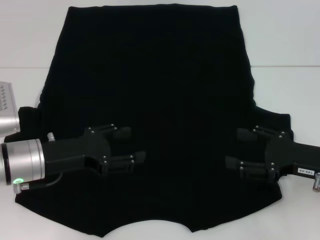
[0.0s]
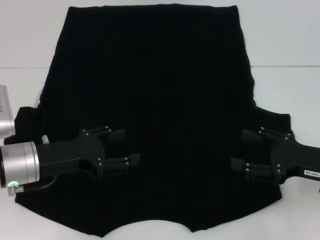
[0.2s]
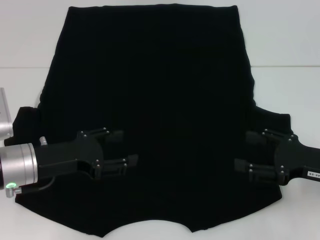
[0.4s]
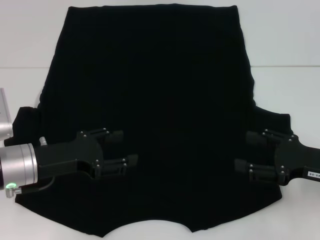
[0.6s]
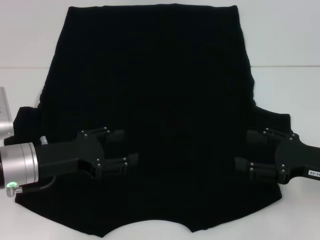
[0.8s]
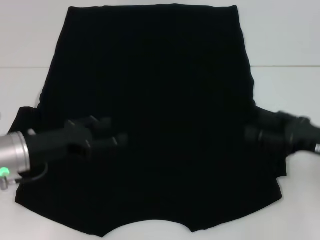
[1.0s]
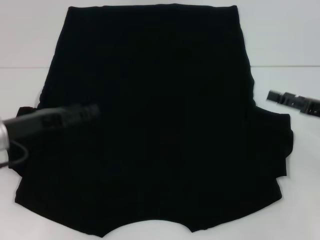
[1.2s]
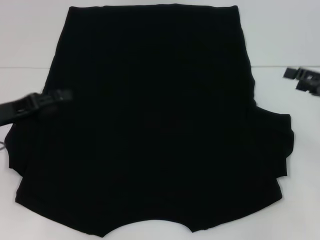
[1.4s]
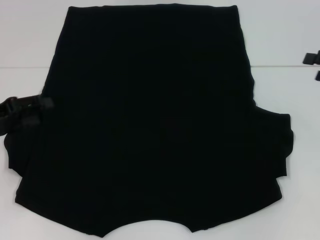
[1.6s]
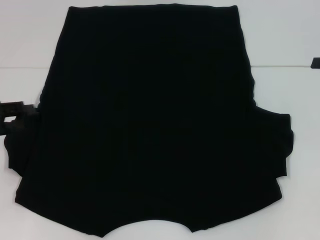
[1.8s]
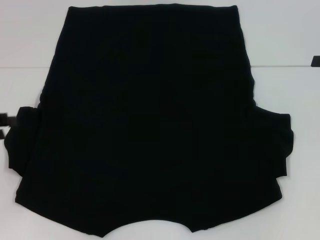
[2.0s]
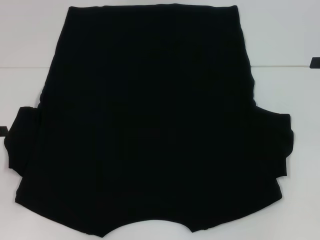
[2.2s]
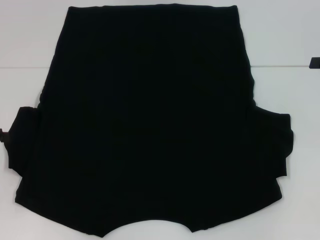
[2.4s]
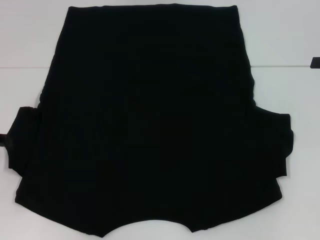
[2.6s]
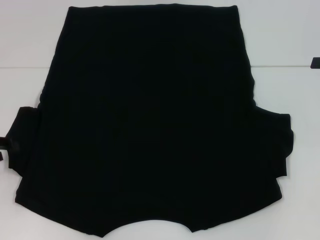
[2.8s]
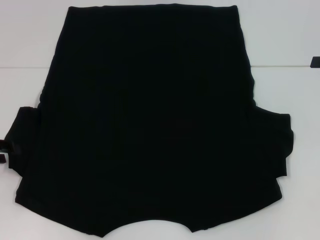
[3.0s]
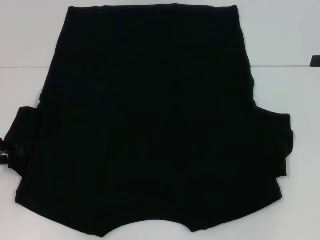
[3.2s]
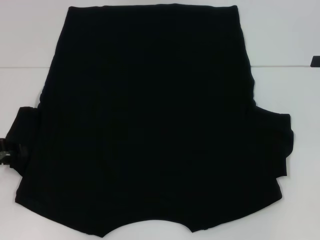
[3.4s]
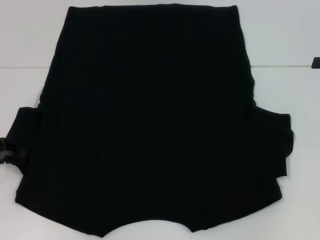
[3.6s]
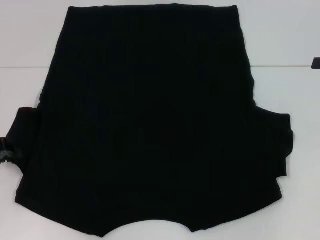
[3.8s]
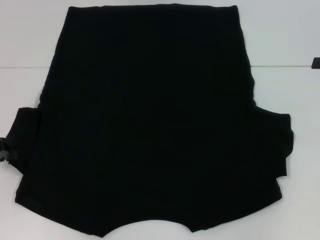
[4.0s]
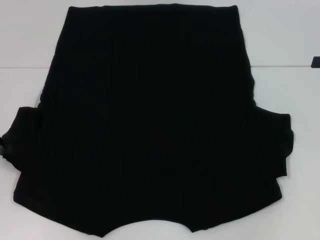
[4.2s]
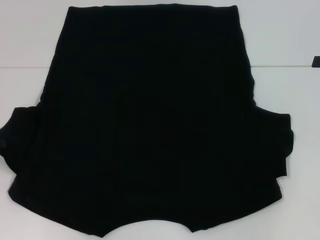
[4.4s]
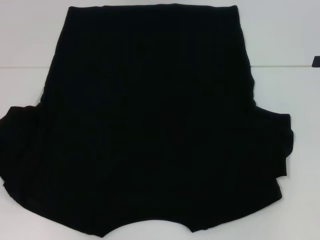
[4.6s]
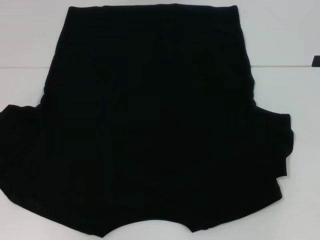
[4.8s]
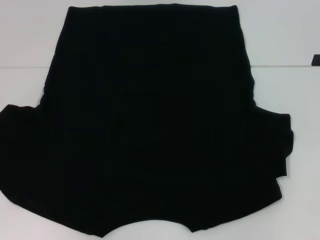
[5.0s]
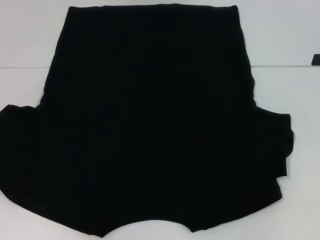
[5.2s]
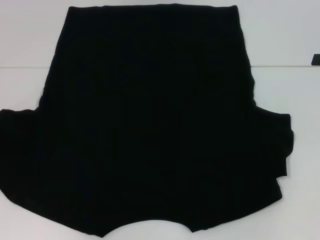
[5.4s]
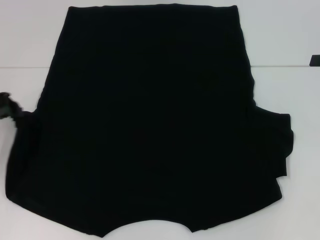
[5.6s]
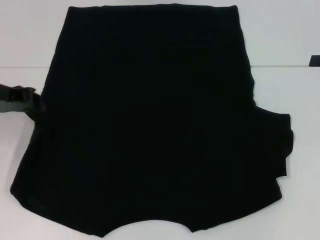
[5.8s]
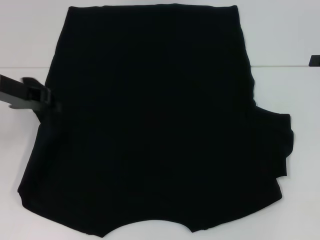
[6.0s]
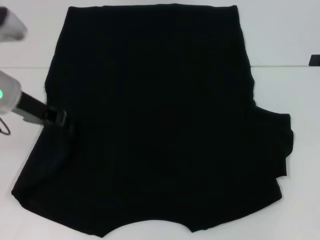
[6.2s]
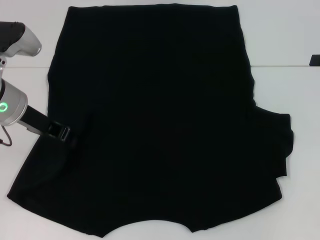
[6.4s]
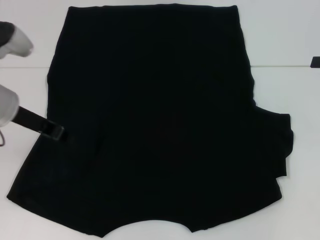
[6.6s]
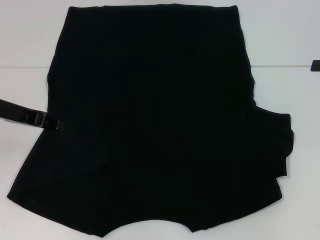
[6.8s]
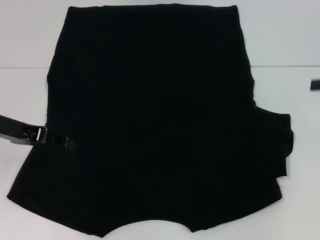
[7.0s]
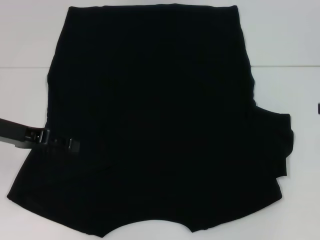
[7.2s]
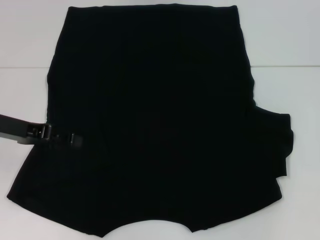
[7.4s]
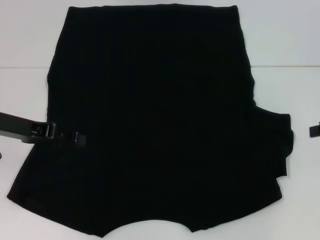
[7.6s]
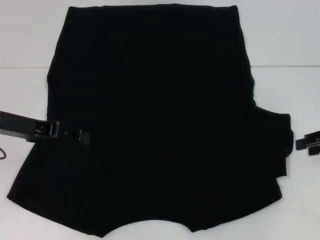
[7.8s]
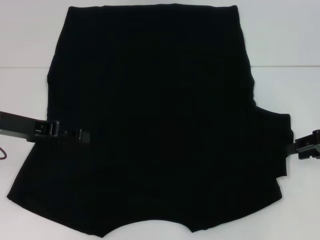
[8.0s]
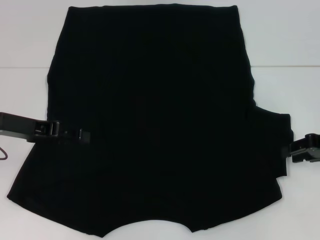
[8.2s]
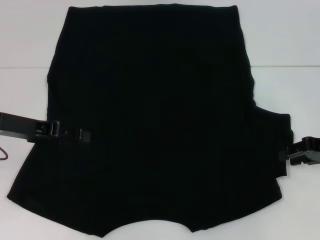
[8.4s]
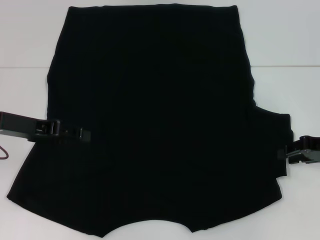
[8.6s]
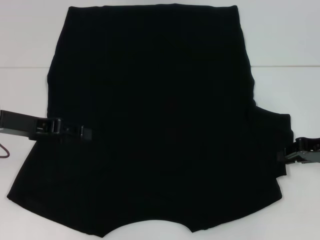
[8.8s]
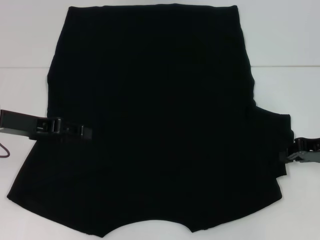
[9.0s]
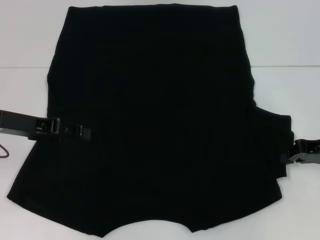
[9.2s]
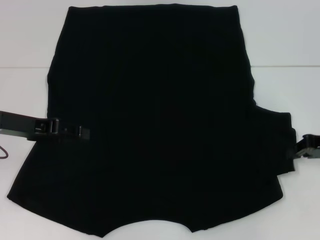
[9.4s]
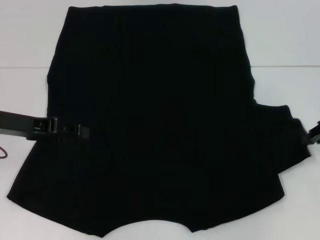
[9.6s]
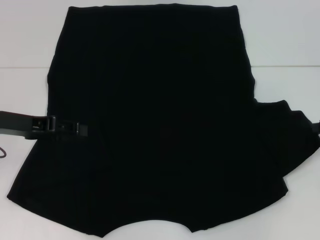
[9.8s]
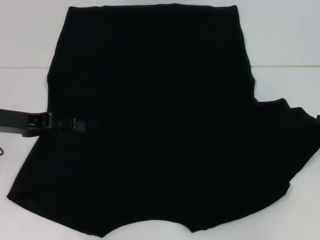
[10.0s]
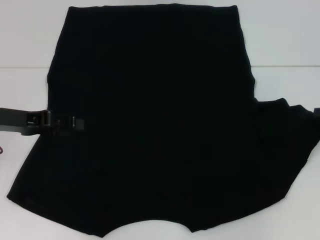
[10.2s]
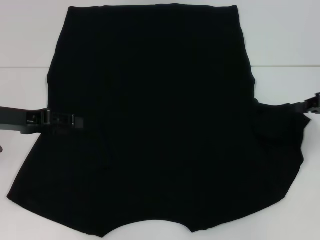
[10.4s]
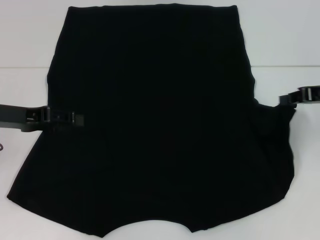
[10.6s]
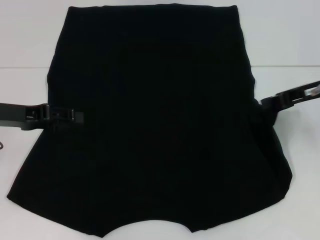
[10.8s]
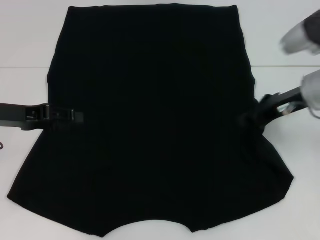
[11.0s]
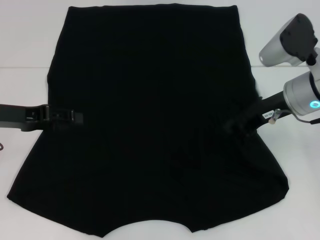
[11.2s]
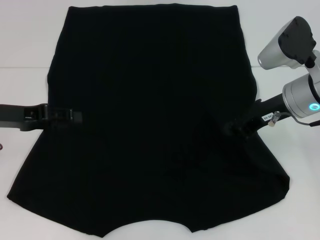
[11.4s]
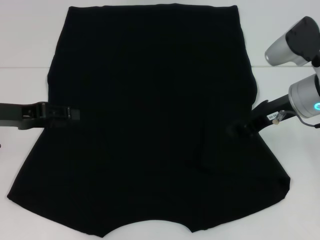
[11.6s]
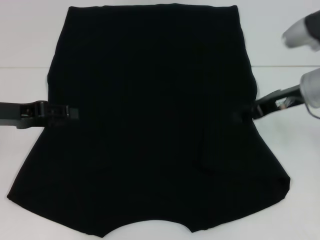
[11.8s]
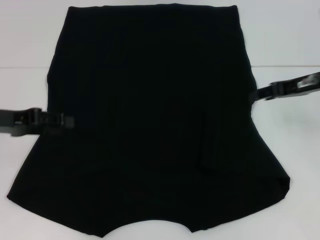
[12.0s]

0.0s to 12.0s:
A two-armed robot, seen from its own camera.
Step, 0.0s to 7.8s: Fold the bottom left sleeve with your left hand.
Step, 8.0s to 11.4s: Fold the bottom right sleeve with your right hand.
0.0s to 1.6s: The right gripper heads to the right, forward and upward, covering approximately 15 cm. The left gripper moves to the left, about 10 cm.
3.0s to 4.4s: The left gripper closes its fingers.
4.4s to 6.0s: The left gripper travels to the right, forward and upward by approximately 15 cm.
6.0s to 7.6s: The left gripper ends up approximately 5 cm from where it was, and opens its fingers.
7.6s to 9.0s: The right gripper heads downward and to the left, covering about 10 cm, and closes up.
9.0s to 10.4s: The right gripper changes place by some 5 cm.
10.4s to 12.0s: The right gripper moves to the left, roughly 5 cm.

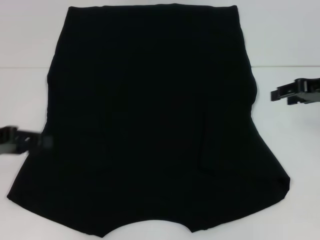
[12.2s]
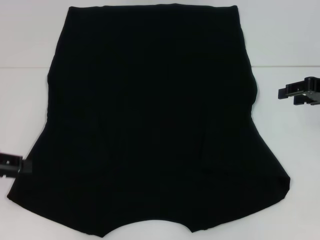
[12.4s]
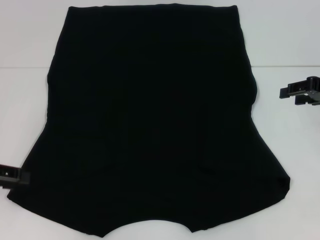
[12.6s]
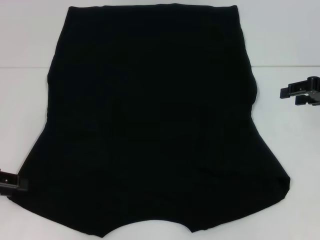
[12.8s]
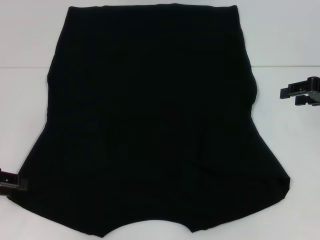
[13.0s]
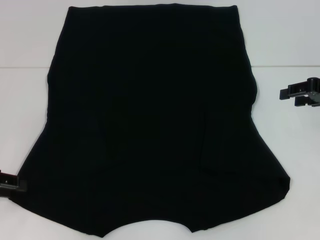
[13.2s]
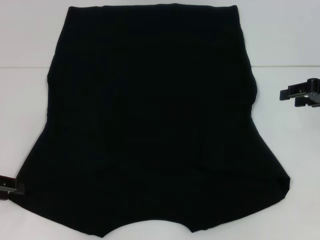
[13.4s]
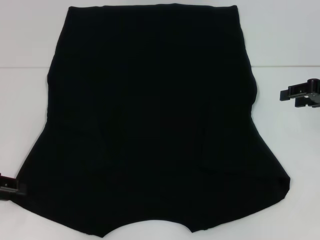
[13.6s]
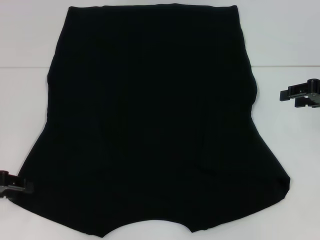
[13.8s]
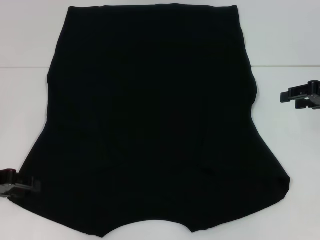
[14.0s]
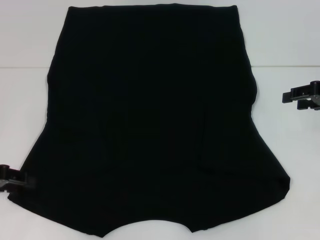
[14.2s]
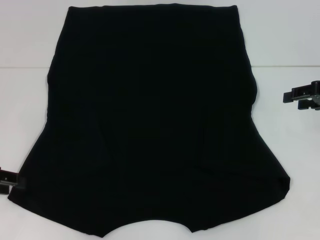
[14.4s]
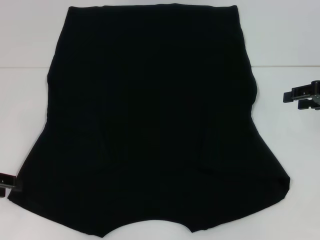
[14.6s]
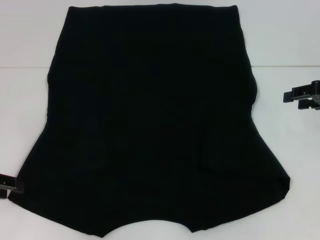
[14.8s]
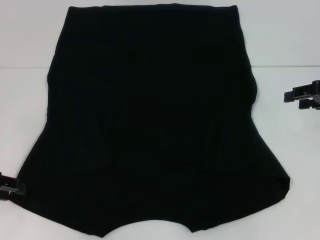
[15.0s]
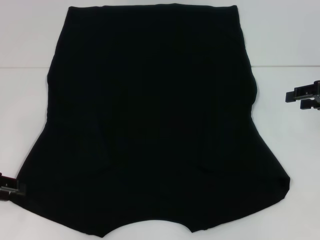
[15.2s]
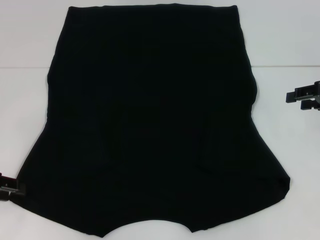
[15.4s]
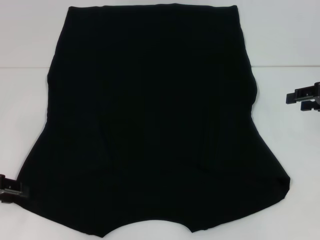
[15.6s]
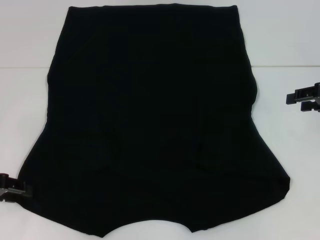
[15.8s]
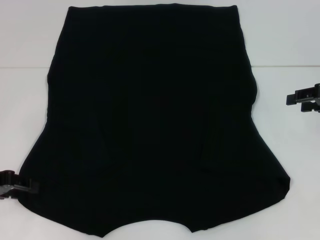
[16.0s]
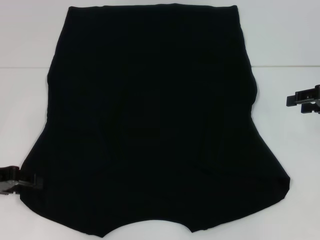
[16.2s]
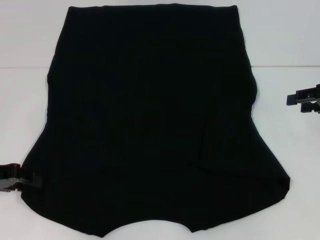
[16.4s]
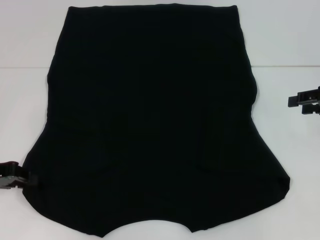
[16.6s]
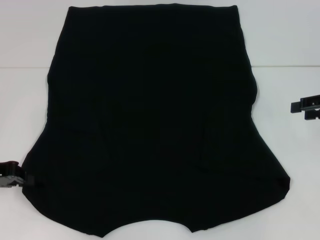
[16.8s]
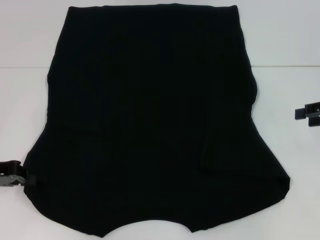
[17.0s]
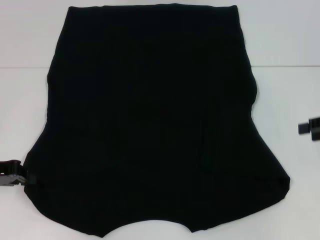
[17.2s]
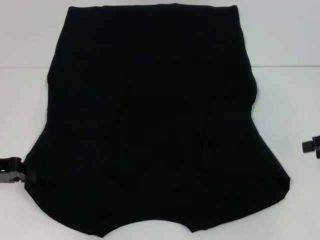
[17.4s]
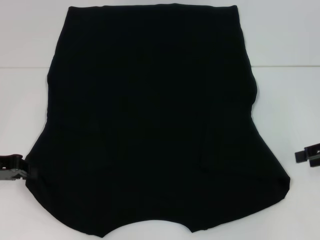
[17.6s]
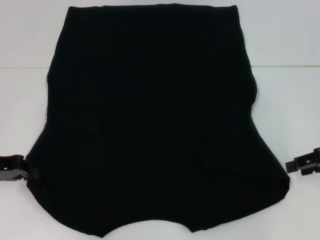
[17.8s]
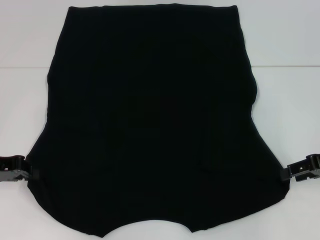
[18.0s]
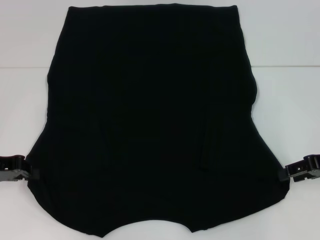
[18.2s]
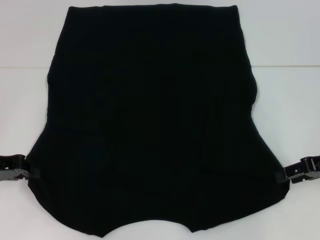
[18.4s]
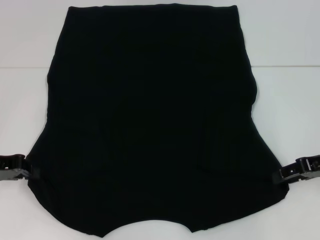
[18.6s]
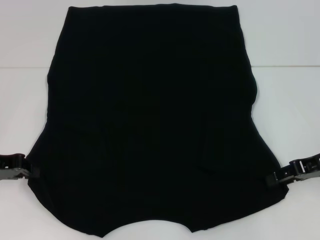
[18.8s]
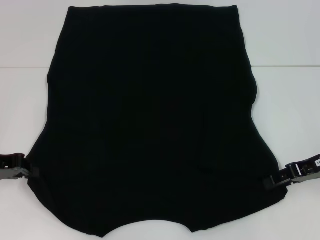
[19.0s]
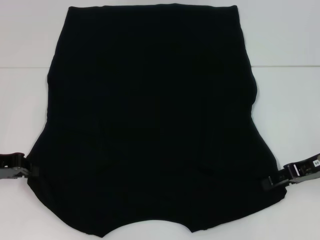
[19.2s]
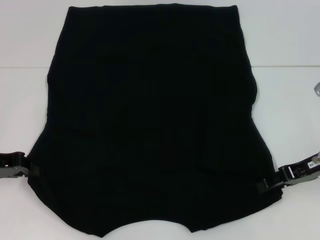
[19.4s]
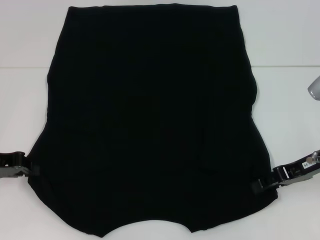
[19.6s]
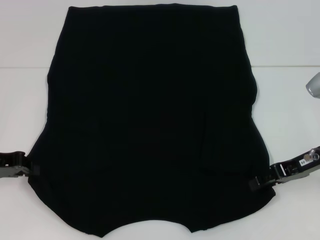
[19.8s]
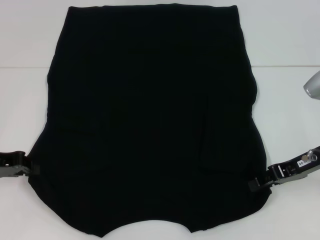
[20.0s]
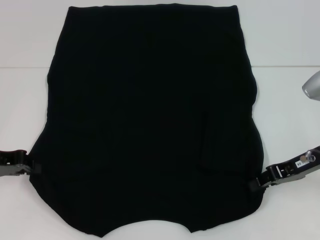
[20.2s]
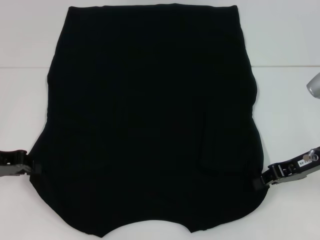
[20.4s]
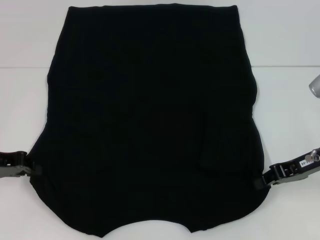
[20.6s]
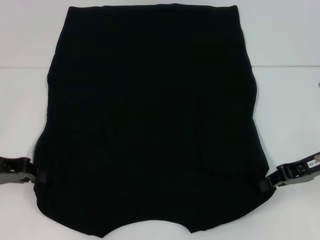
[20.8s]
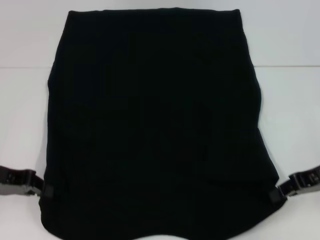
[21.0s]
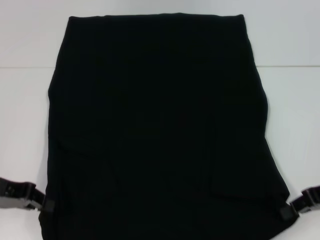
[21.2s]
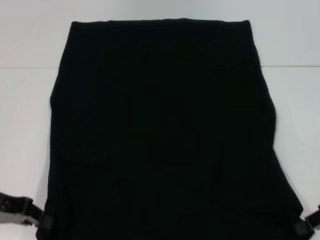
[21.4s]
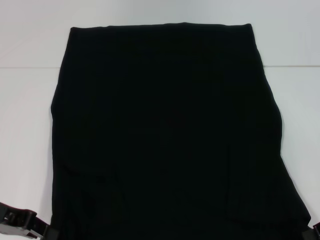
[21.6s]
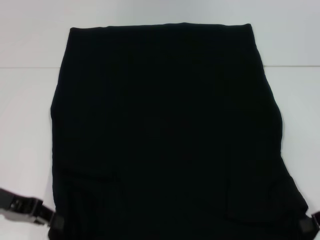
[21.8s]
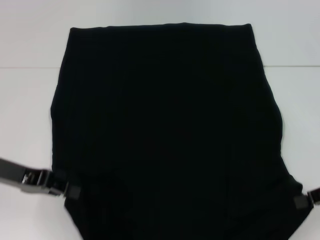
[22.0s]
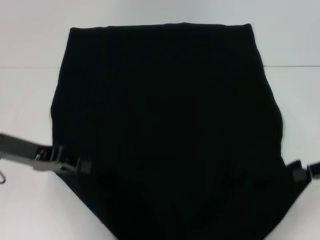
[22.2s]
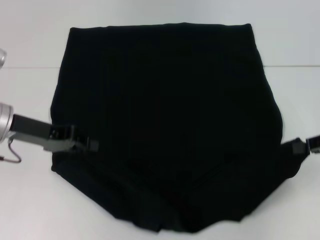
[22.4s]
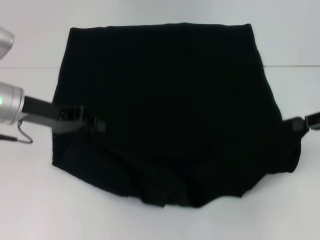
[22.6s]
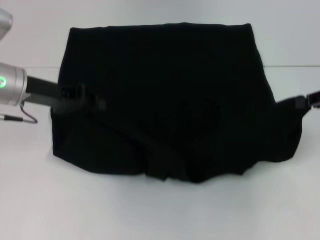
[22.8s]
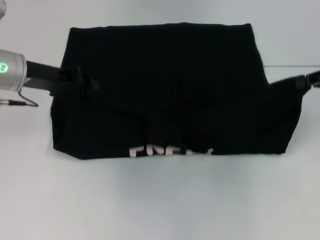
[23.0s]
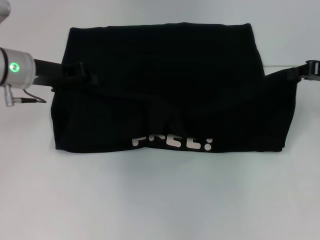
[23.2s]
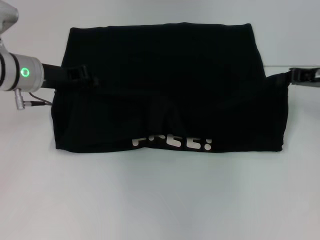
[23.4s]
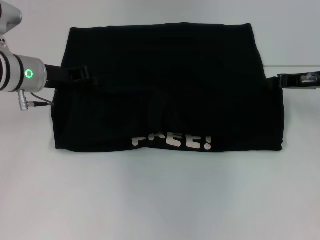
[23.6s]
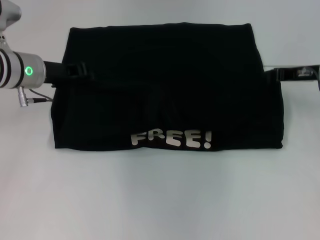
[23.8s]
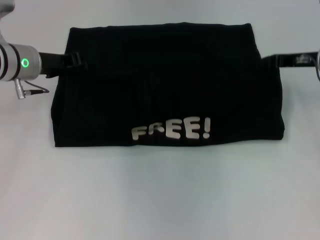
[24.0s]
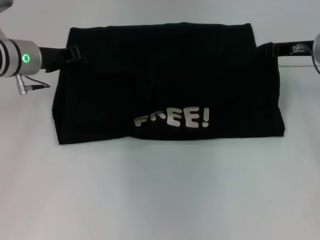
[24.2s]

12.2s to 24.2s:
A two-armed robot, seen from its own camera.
Step, 12.2s to 20.8s: Grab the bottom left corner with your left hand.
Step, 12.2s to 20.8s: Grab the bottom right corner with your right hand.
12.2s to 13.8s: The left gripper moves about 5 cm.
13.8s to 15.2s: The two grippers keep their place.
15.2s to 16.6s: The grippers make only small movements.
16.6s to 18.2s: The right gripper moves some 5 cm; the left gripper closes.
18.2s to 19.8s: The right gripper shifts about 5 cm to the left.
19.8s to 21.2s: The right gripper ends up some 5 cm from where it was, and closes up.
21.2s to 22.6s: The right gripper changes place by about 5 cm, while the left gripper moves forward and to the right, roughly 10 cm.
22.6s to 24.2s: The left gripper is displaced forward by approximately 5 cm, while the right gripper goes roughly 15 cm forward and to the left.
